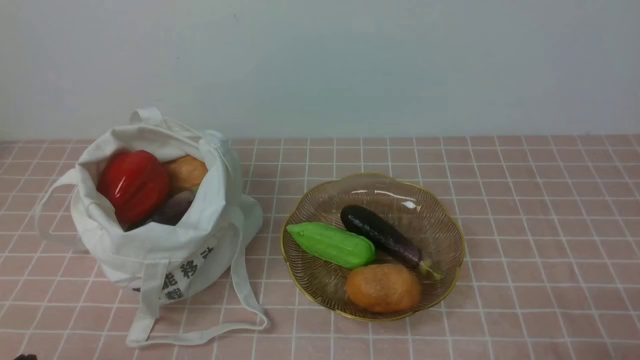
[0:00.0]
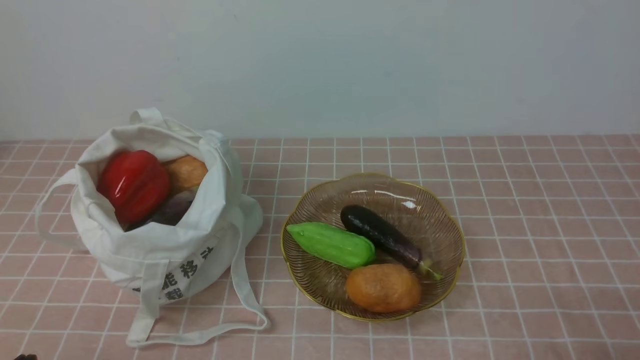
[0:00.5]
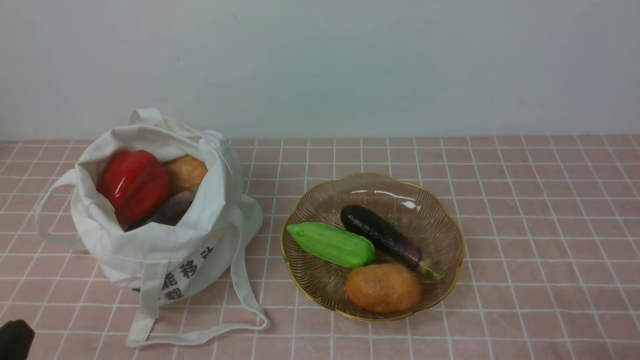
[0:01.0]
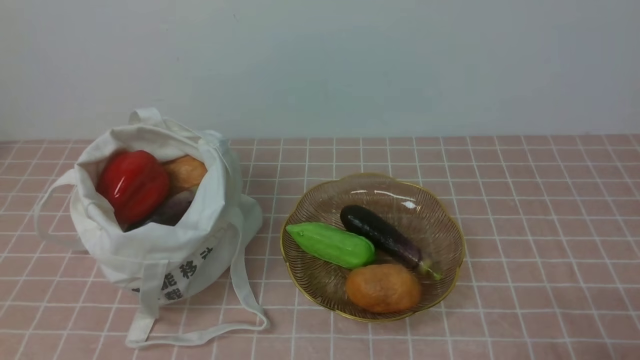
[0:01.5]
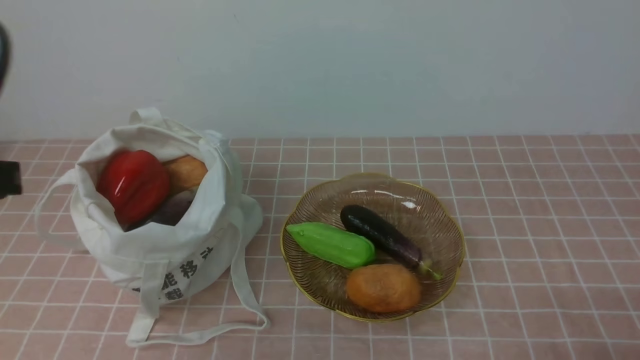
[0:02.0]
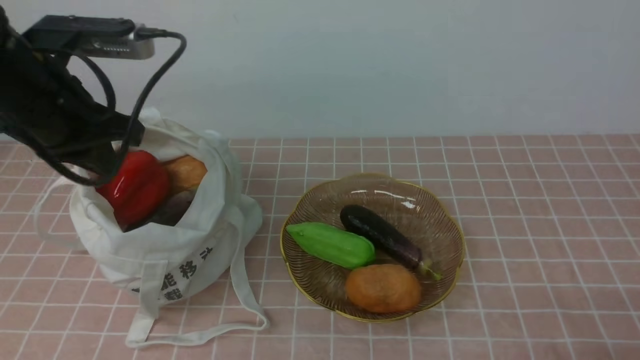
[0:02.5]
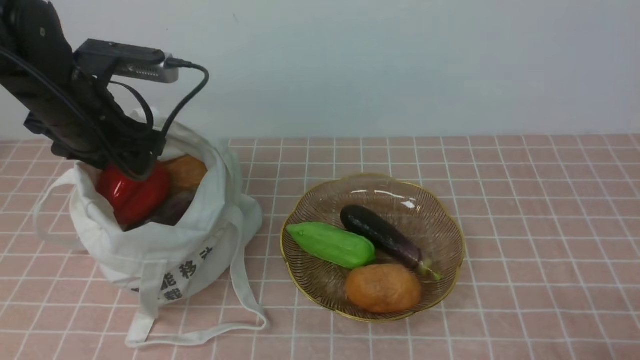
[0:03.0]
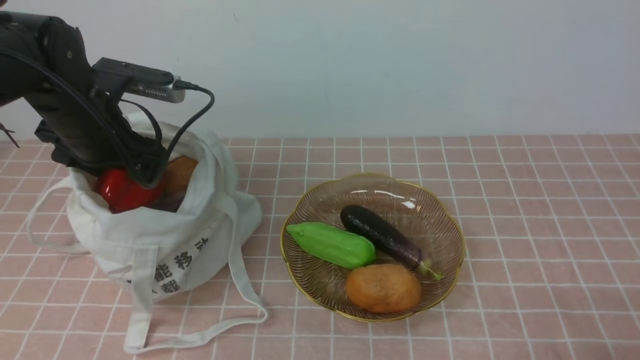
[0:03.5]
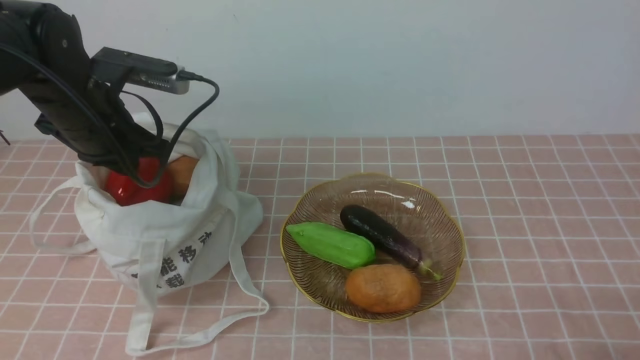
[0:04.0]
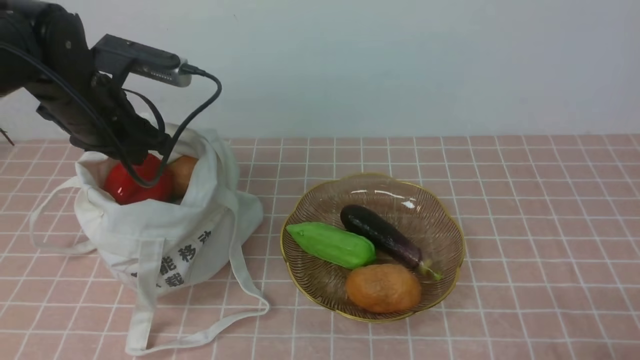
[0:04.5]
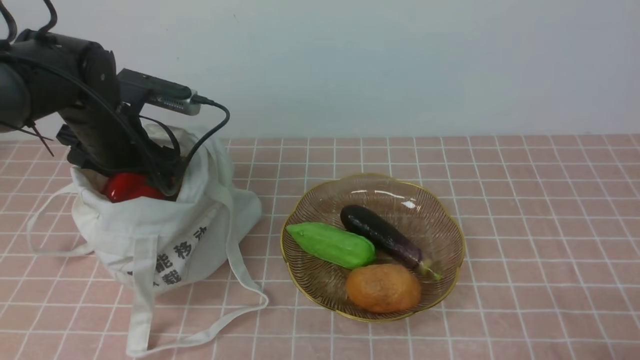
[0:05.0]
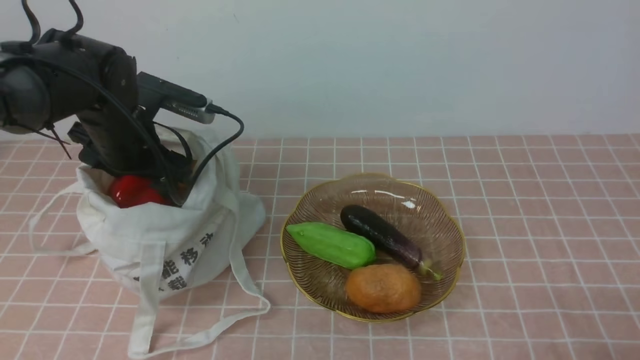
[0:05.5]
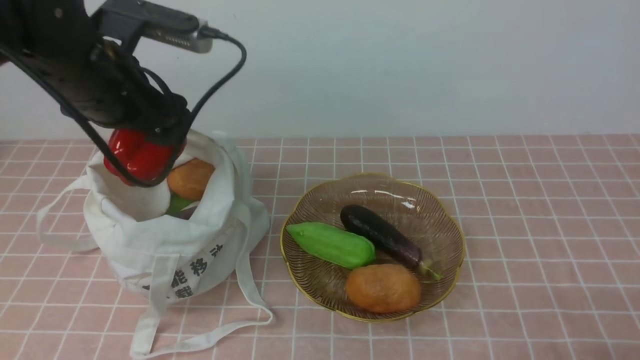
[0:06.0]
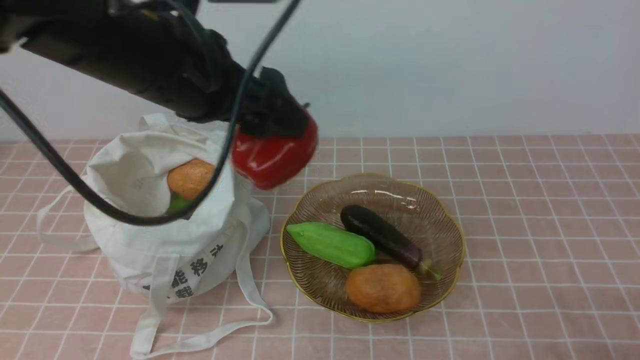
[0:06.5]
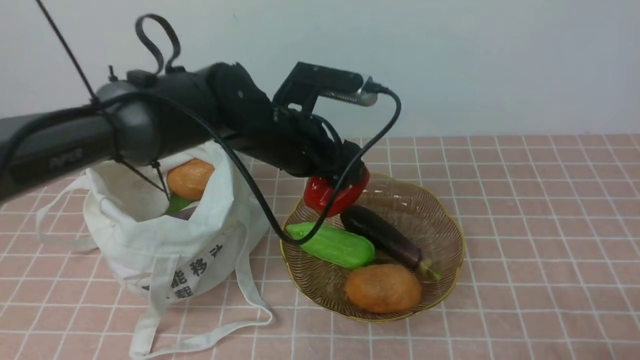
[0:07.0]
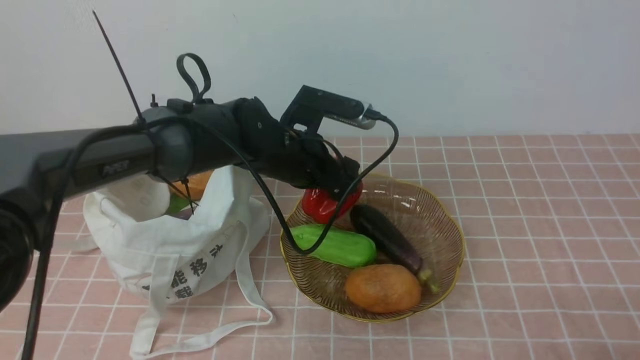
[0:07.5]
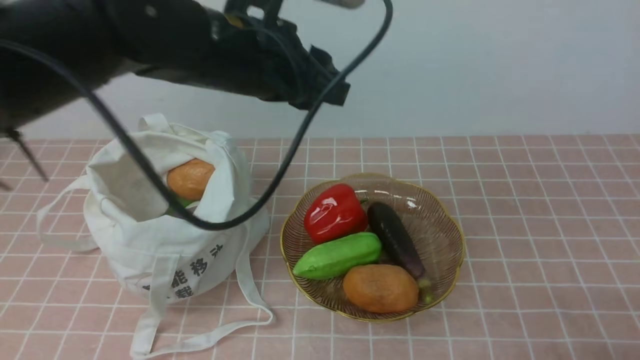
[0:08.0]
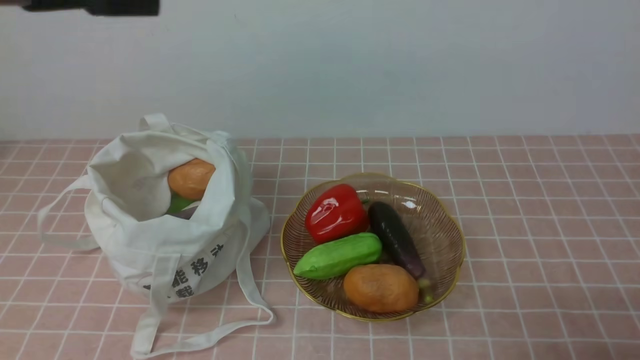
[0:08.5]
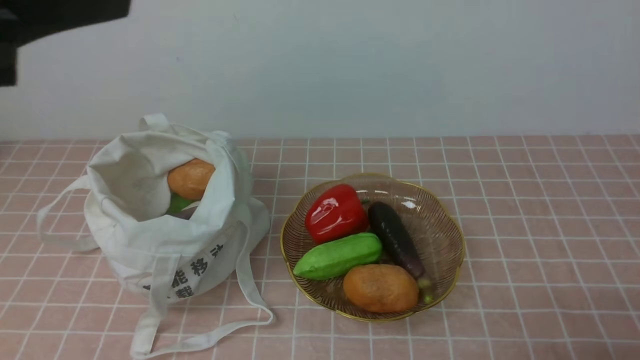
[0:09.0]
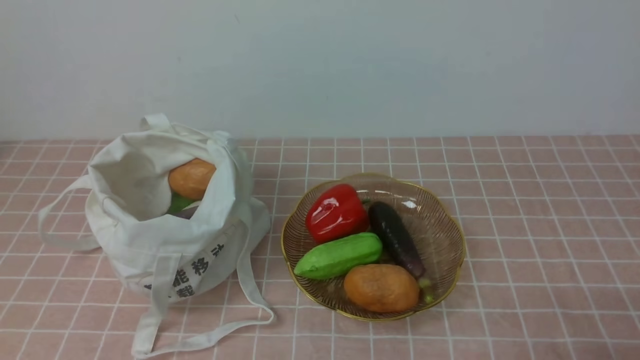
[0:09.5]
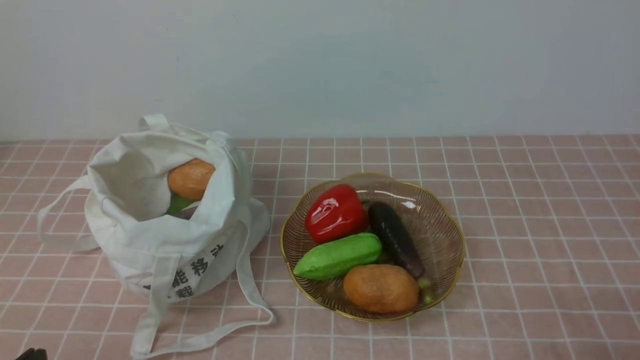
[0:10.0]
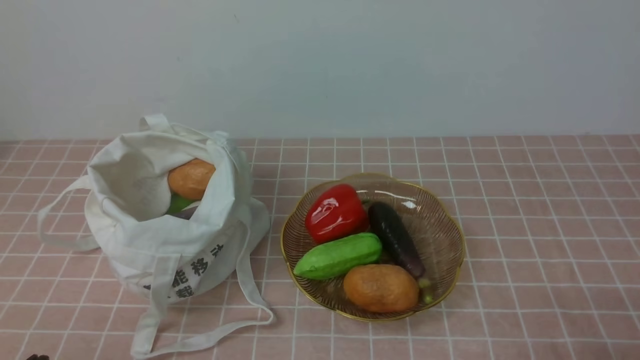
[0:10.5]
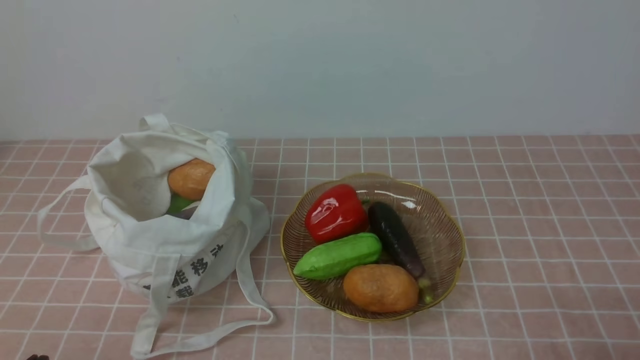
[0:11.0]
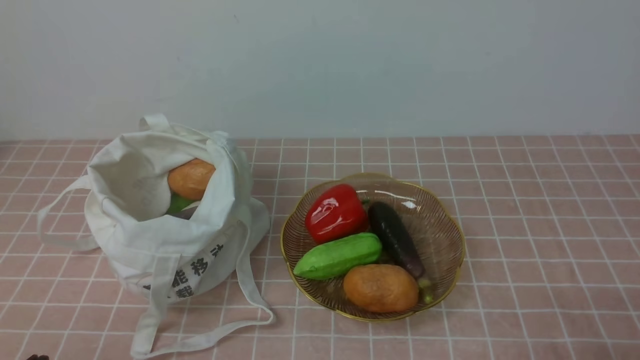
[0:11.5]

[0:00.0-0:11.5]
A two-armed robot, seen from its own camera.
Task of the whole recording: take vegetables from bag on pink coffee tablecloth place on plate.
Step, 0:00.0 to 0:05.0: Grasp the bell pepper with left gripper.
Step, 0:05.5 to 0:07.5: Place the bell pepper on the plate with left gripper.
0:00.0 to 0:02.0: The left gripper travels upward and forward by about 25 cm.
0:02.0 to 0:04.0: The left gripper is displaced forward and downward by some 20 cm, and opens, then closes again.
0:04.0 to 0:06.0: The left gripper goes roughly 5 cm upward, and opens up.
0:06.0 to 0:07.5: The left gripper moves to the right and downward, approximately 20 cm.
0:07.5 to 0:09.5: The left gripper travels backward, to the left and upward by approximately 40 cm, and closes up.
